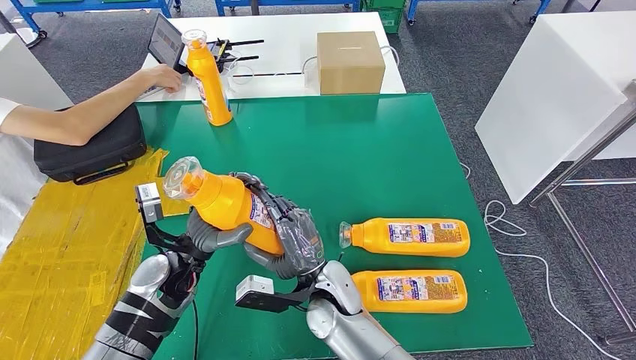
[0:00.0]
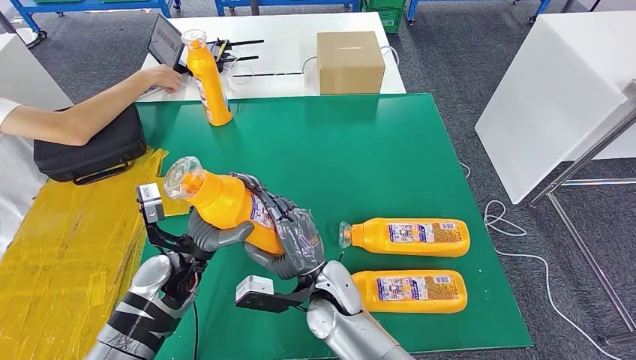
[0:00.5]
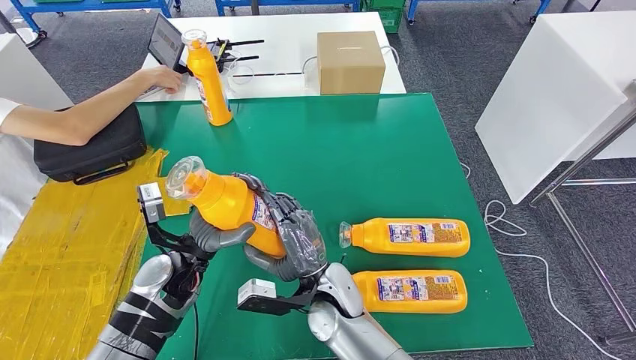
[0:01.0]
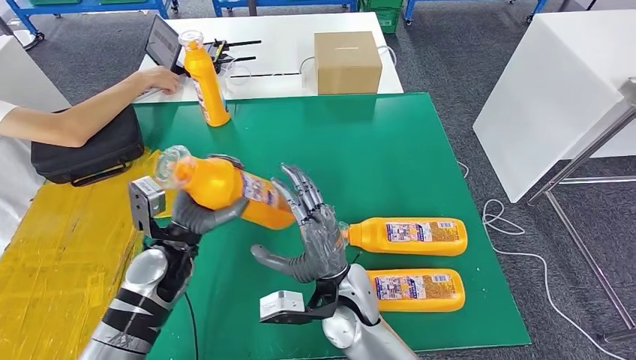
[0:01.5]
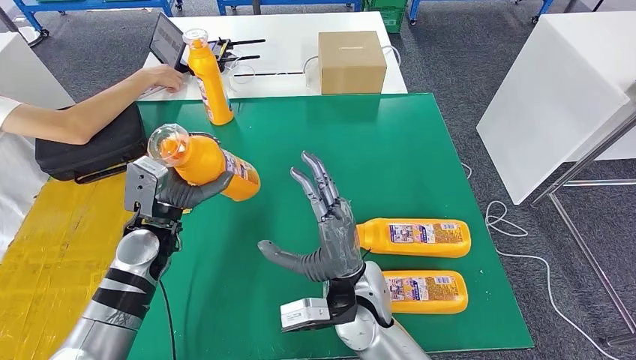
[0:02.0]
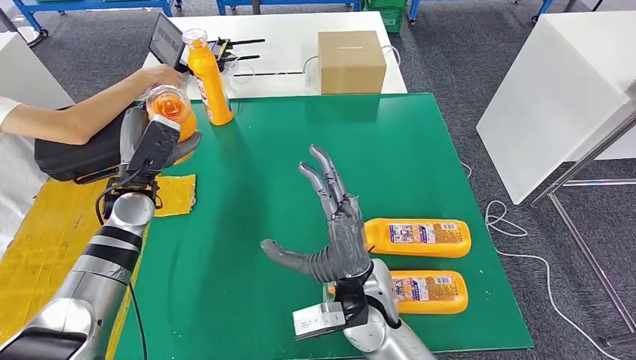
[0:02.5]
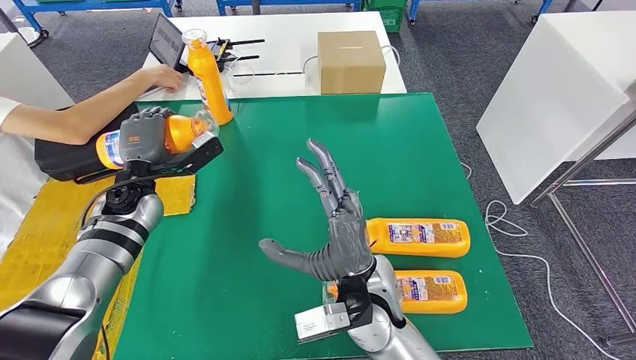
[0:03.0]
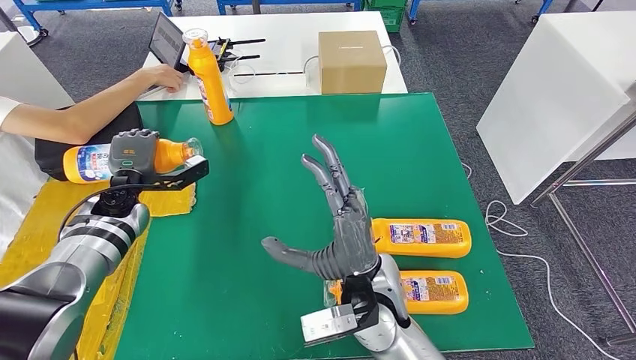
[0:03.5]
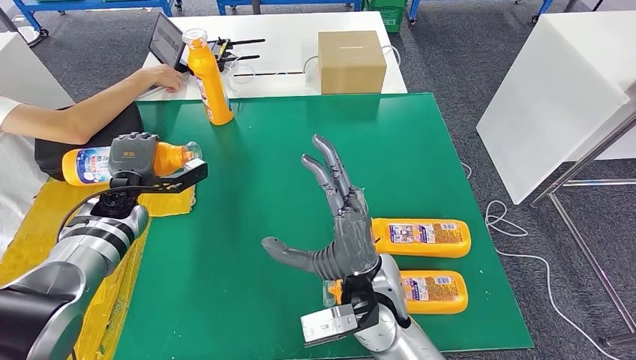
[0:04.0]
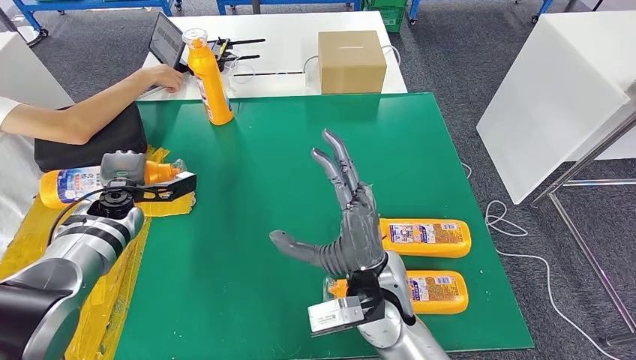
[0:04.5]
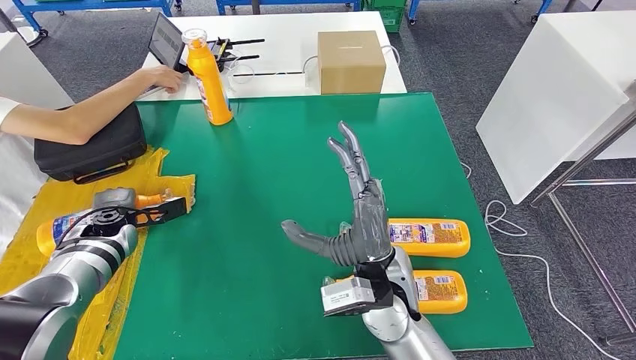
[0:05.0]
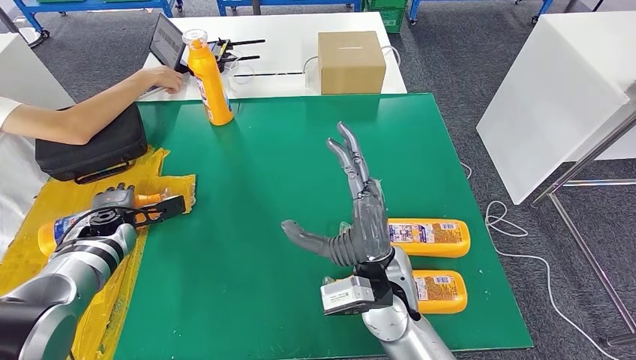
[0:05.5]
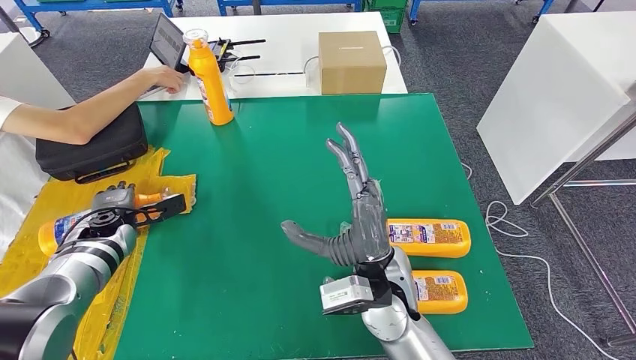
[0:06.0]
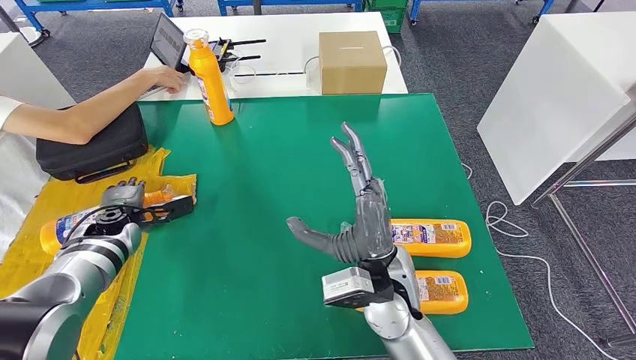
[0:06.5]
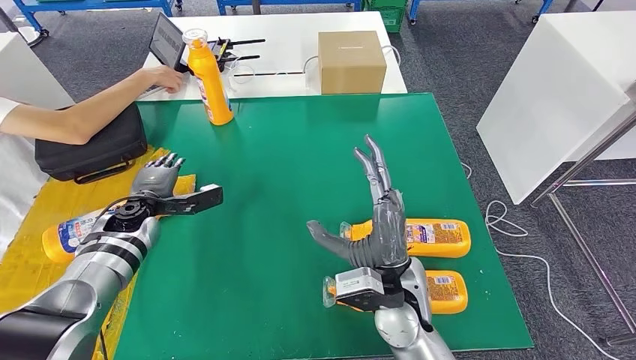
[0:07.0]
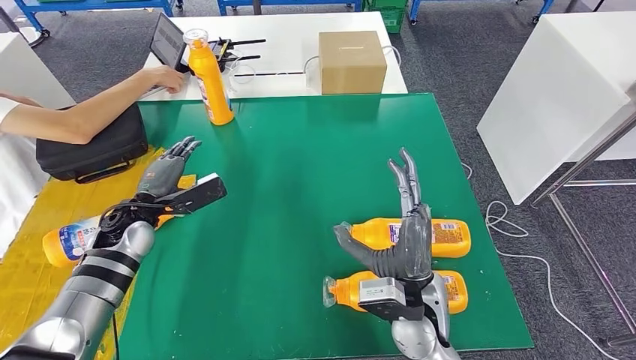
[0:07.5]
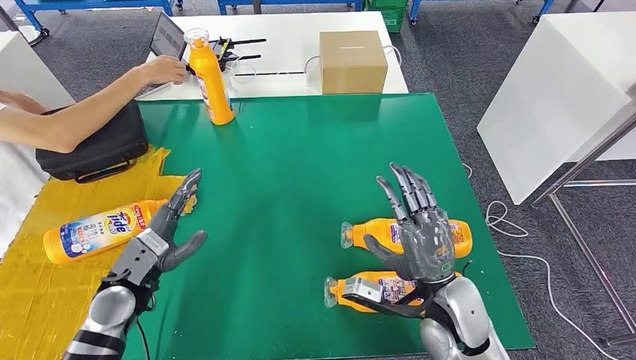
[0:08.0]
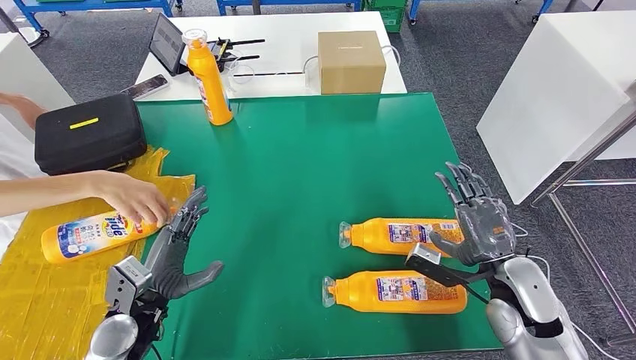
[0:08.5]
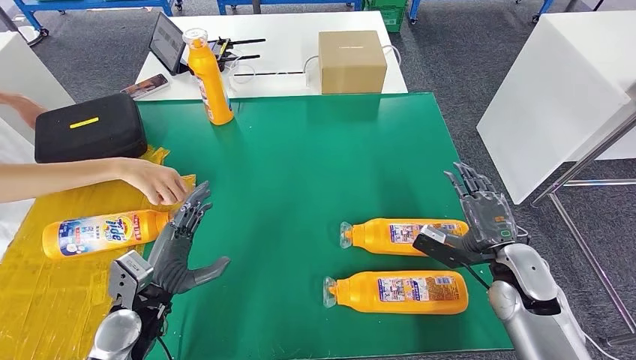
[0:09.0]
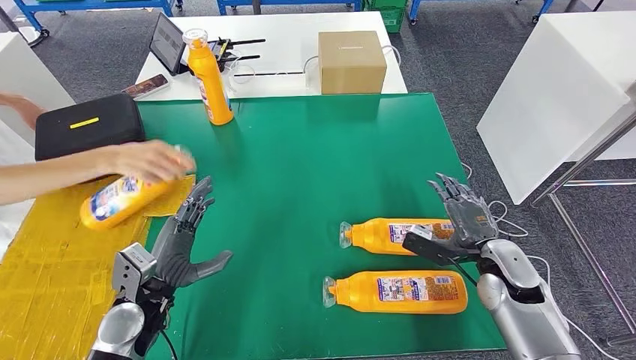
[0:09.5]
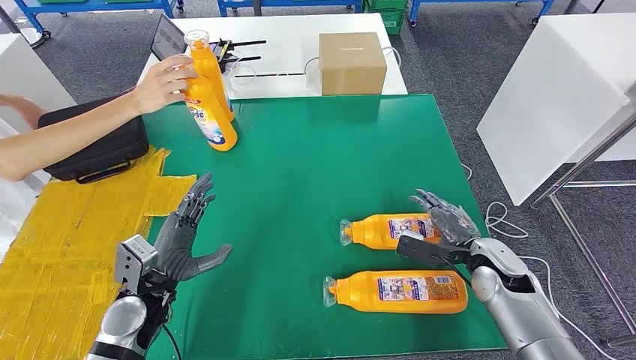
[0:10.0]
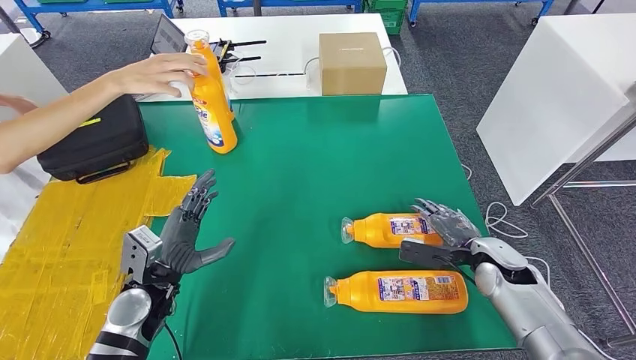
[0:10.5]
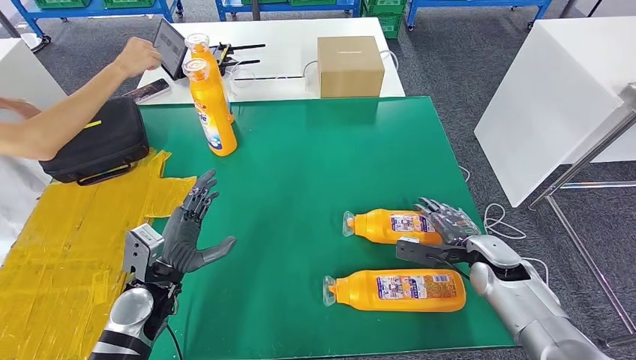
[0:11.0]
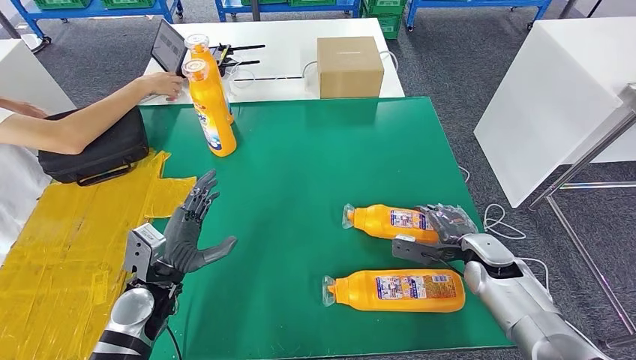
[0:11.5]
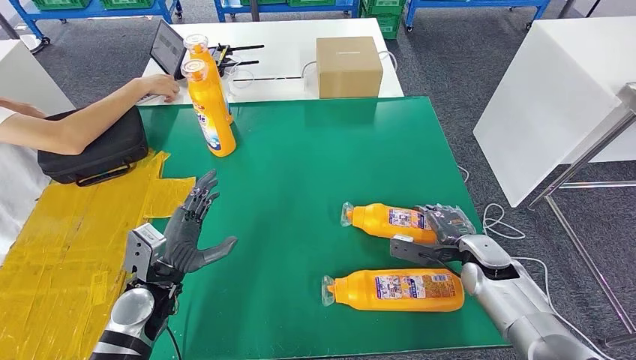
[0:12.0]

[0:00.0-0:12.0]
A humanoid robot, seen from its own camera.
Step, 0:00.0 to 0:03.0: Flip the fast-moving consumer goods bottle to the front side.
0:00.0 to 0:02.0: The left hand ends up approximately 5 cm from where it was; the right hand is displaced upward by about 5 cm.
0:02.0 to 0:04.0: The left hand goes about 10 cm to the left and forward.
0:04.0 to 0:06.0: The left hand is displaced downward by about 5 cm.
0:06.0 to 0:08.0: The left hand goes roughly 15 cm backward and to the right. Meanwhile the right hand moves to the right and downward, roughly 10 cm.

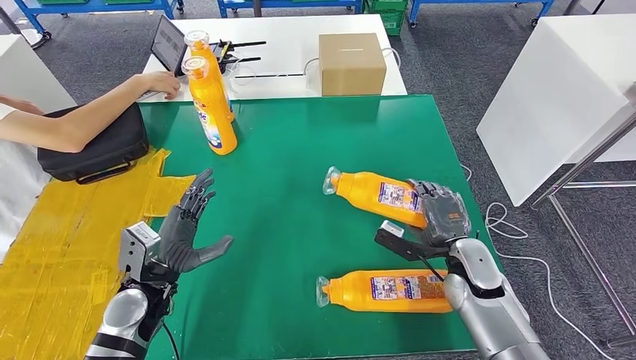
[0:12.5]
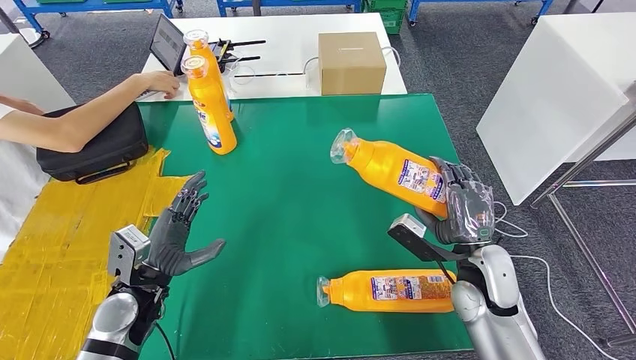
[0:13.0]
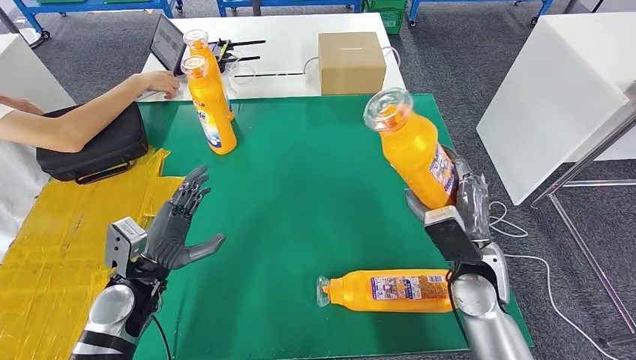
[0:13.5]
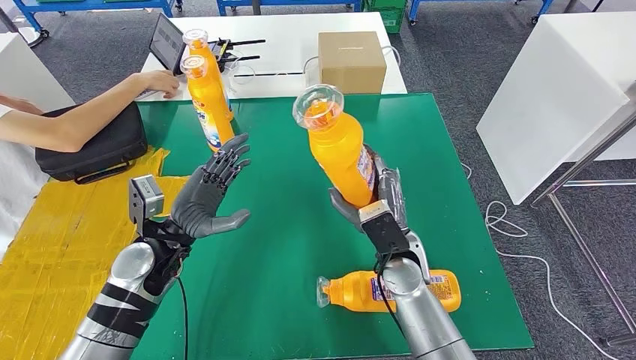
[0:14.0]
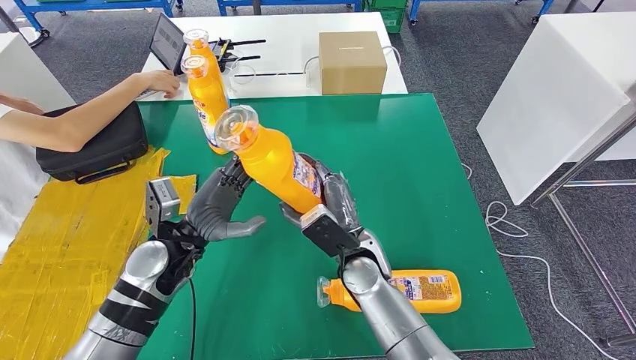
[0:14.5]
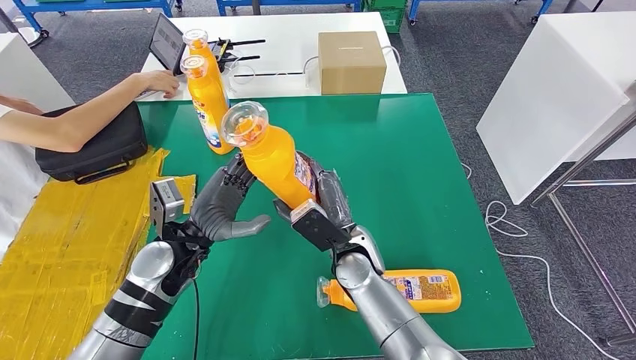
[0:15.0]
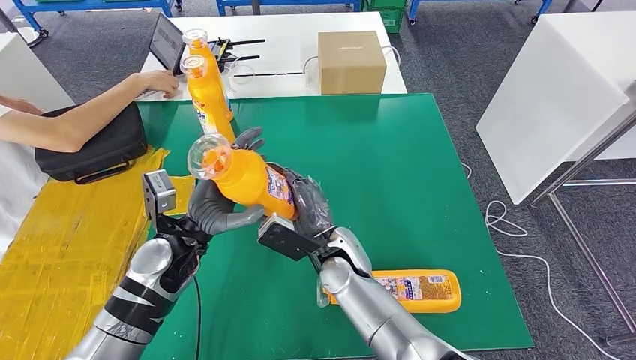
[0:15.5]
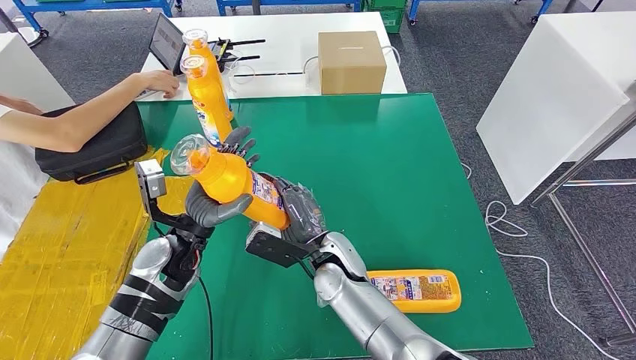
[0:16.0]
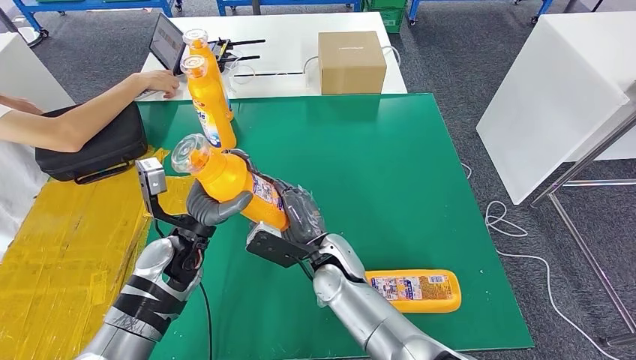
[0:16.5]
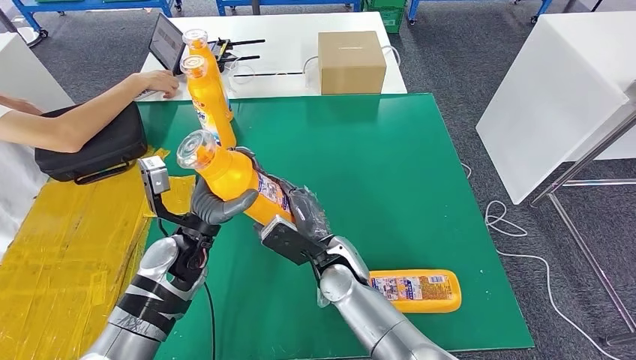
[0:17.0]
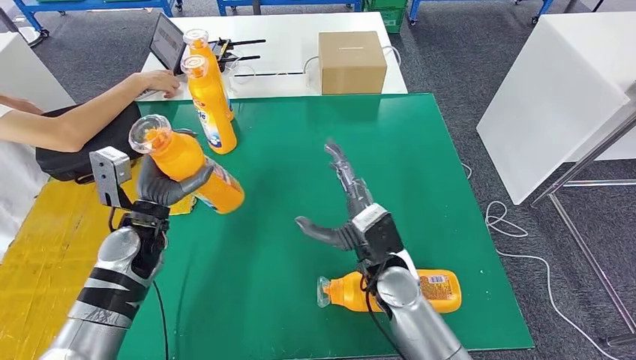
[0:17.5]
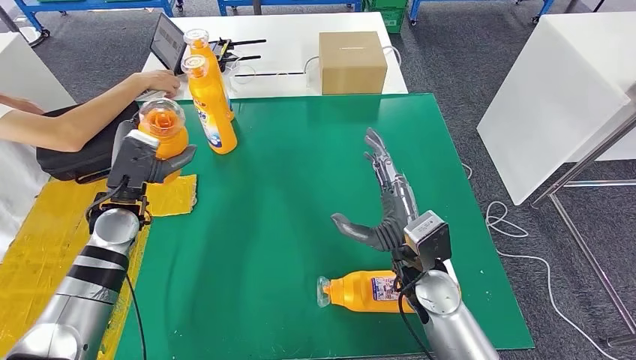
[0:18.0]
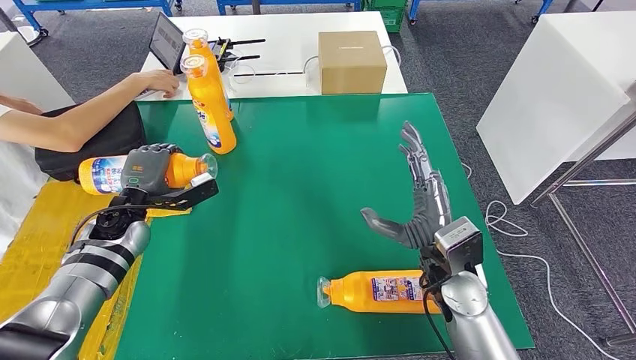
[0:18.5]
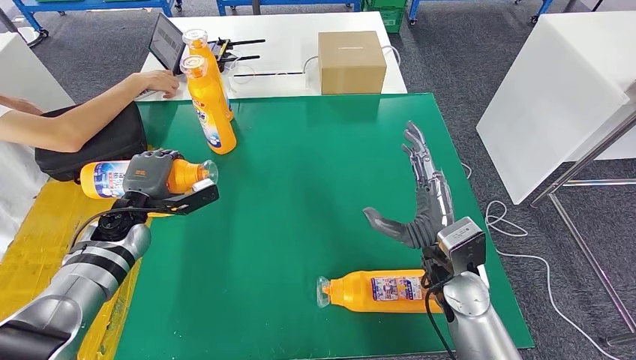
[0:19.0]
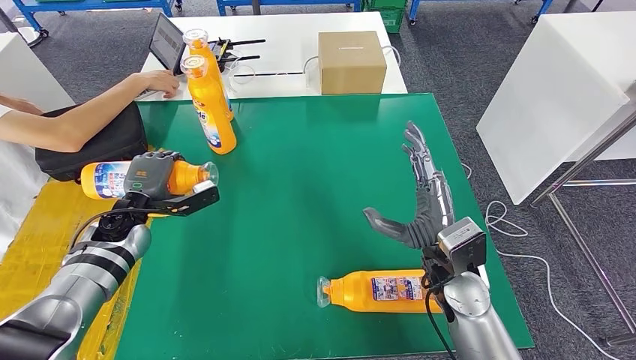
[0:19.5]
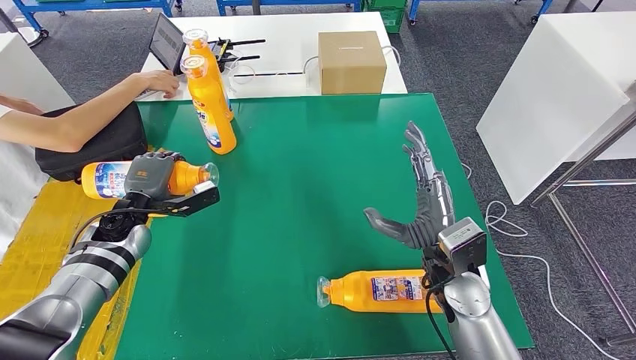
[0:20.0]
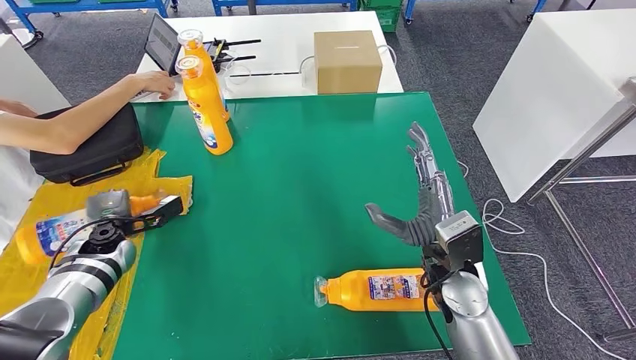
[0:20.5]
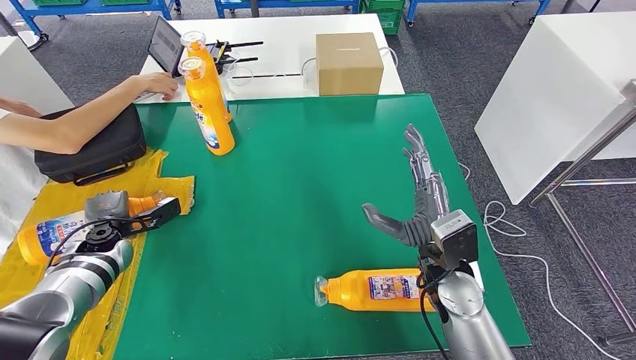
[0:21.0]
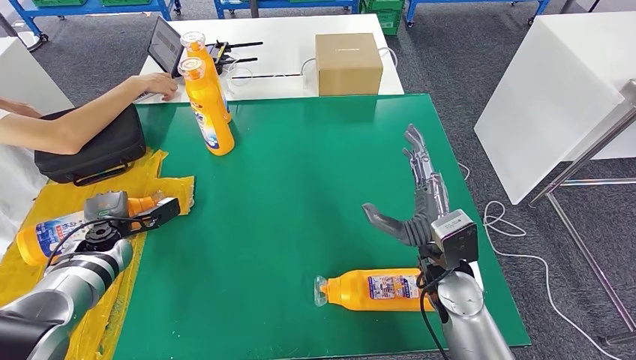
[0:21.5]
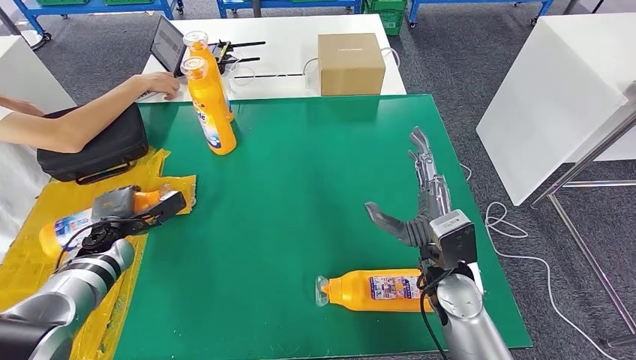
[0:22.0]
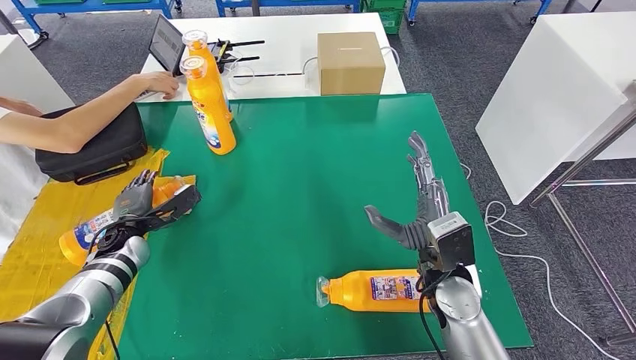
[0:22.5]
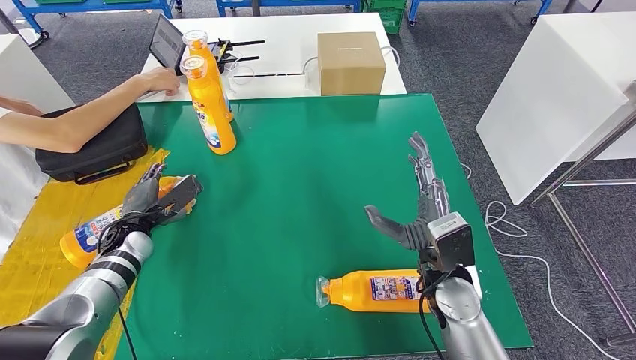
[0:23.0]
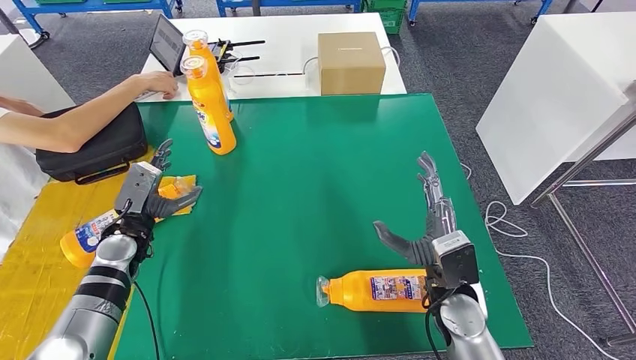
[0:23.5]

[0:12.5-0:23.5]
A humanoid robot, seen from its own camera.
Step, 0:13.5 to 0:19.0: Flip the fast-moving consumer goods bottle to the front side.
0:14.5 to 0:16.0: The right hand shifts by approximately 5 cm.
0:18.0 to 0:20.0: The left hand is displaced downward by approximately 5 cm.
0:20.0 to 0:21.5: The left hand moves to the left, about 5 cm.
0:21.5 to 0:23.5: The left hand goes approximately 5 cm to the right.
